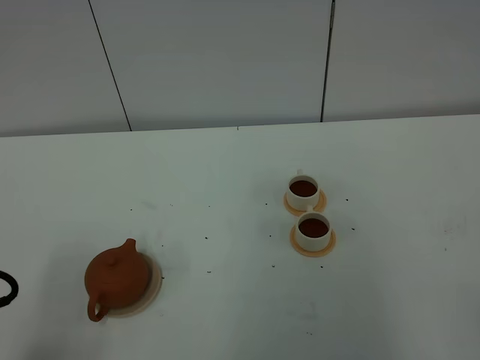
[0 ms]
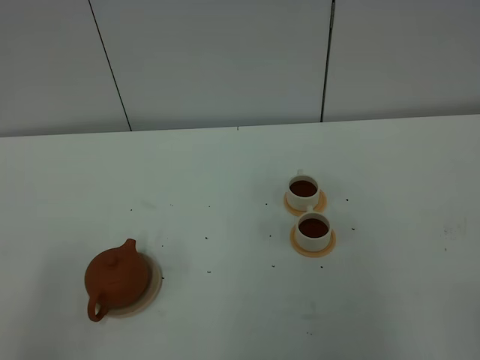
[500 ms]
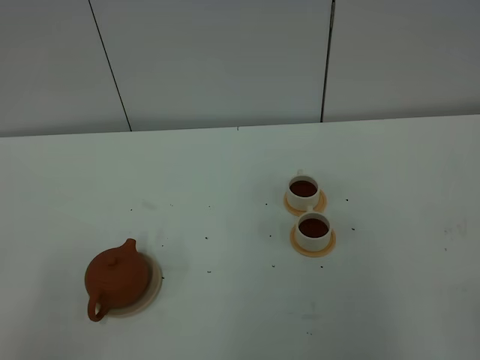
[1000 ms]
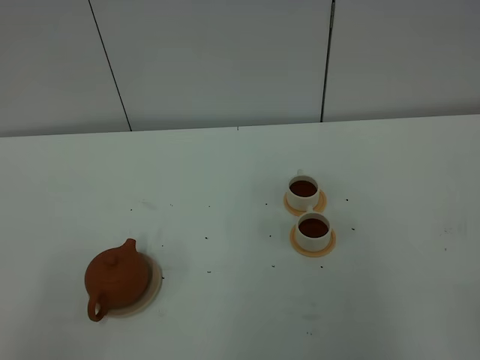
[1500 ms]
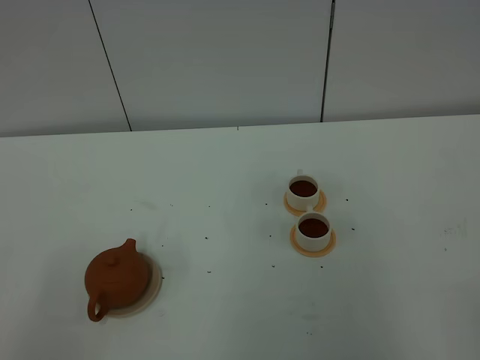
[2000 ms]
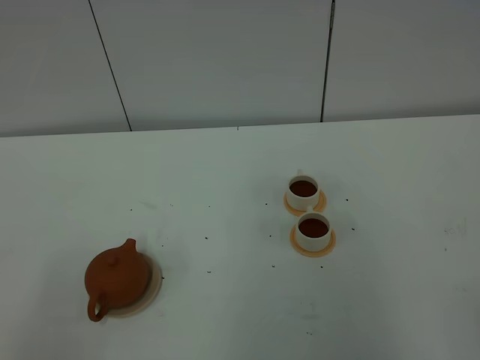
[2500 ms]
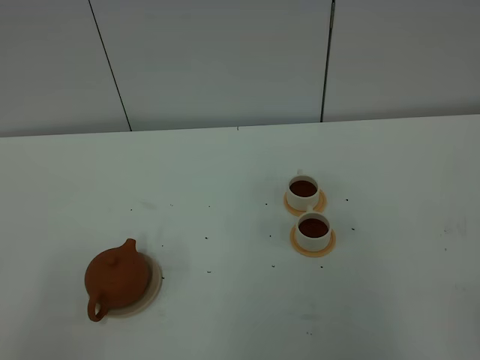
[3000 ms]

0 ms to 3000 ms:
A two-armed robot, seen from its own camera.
Task of the whole recording: grasp the brown teapot and pour the tea into the two white teacups one by one, put the brown teapot back in its original place.
1500 ms to 3000 ms: Both grippers stay about where they are.
